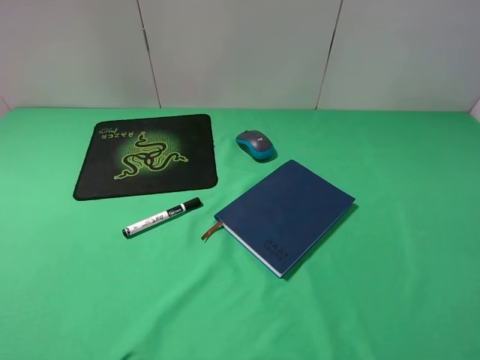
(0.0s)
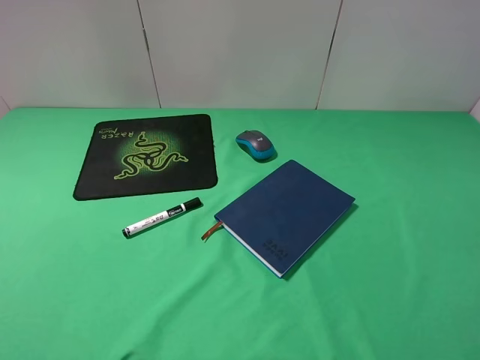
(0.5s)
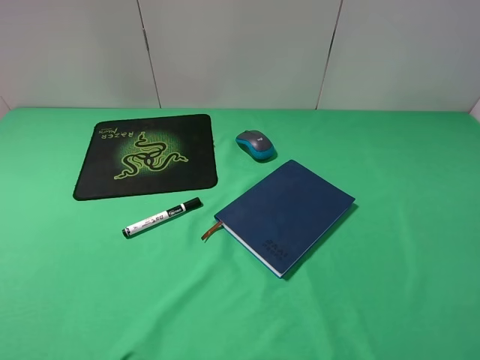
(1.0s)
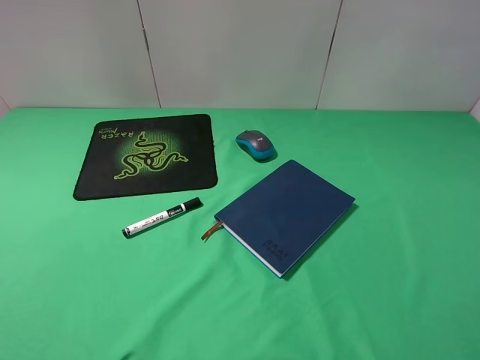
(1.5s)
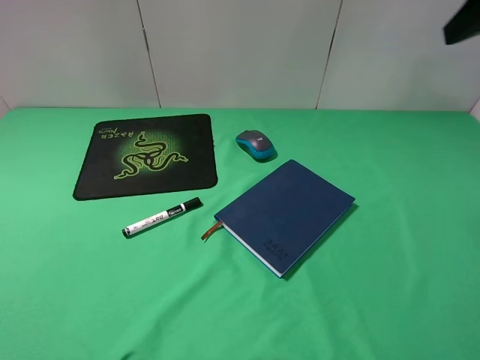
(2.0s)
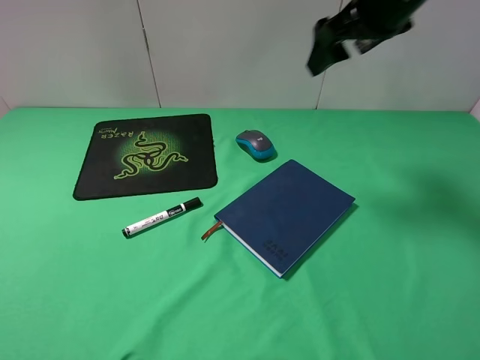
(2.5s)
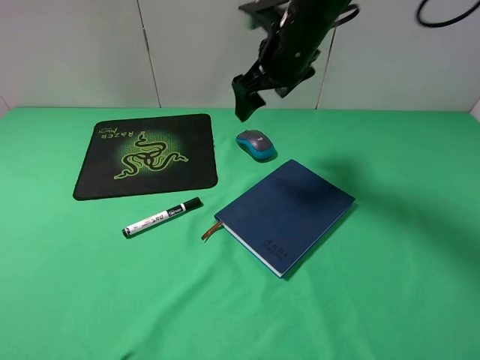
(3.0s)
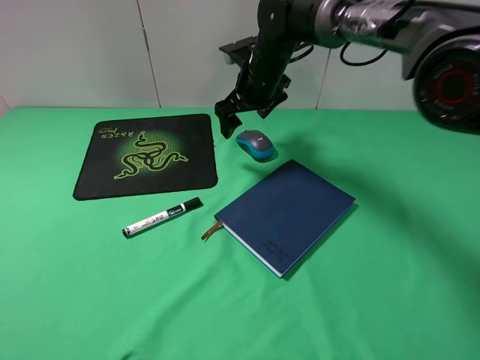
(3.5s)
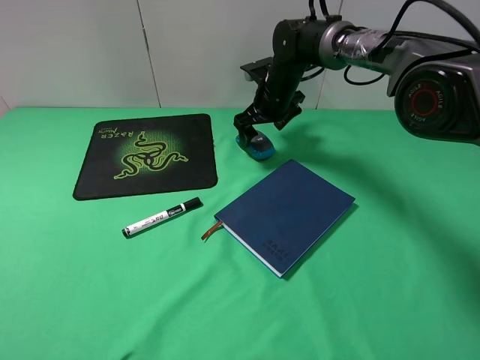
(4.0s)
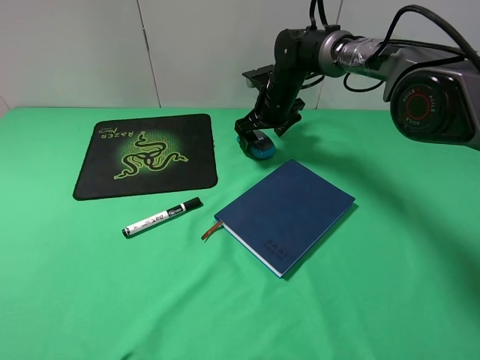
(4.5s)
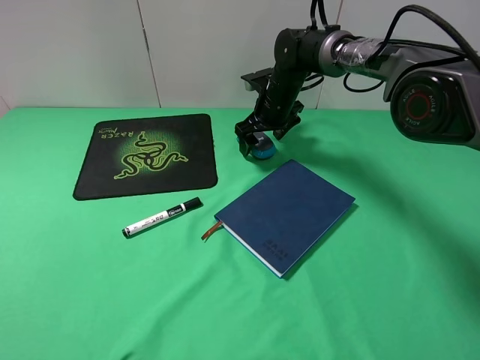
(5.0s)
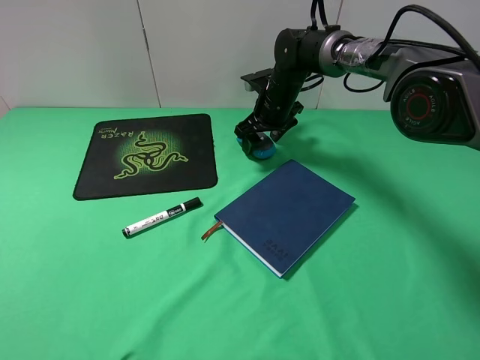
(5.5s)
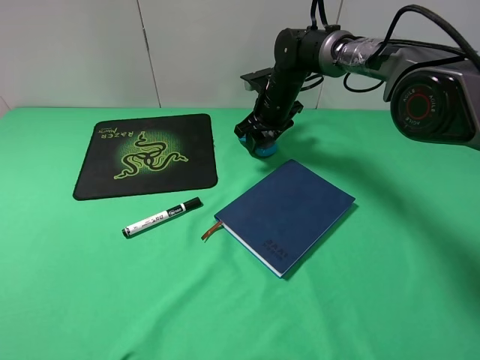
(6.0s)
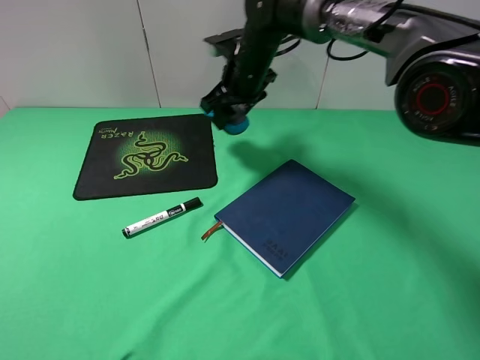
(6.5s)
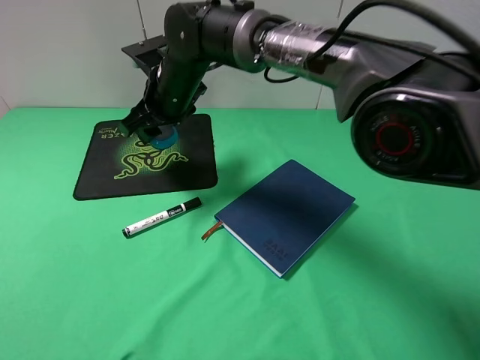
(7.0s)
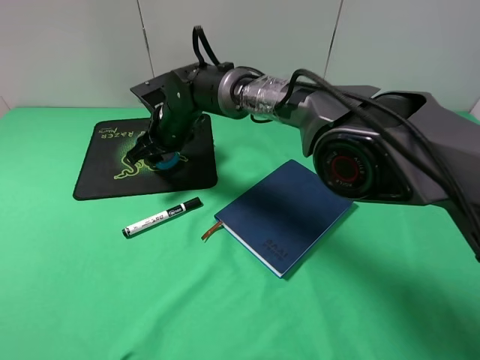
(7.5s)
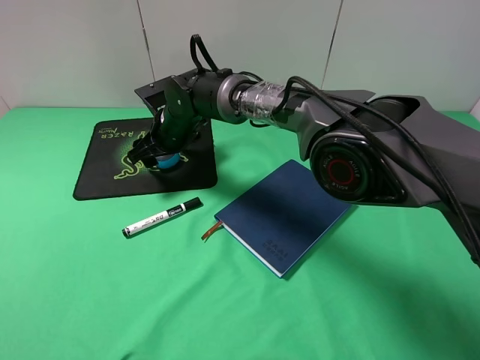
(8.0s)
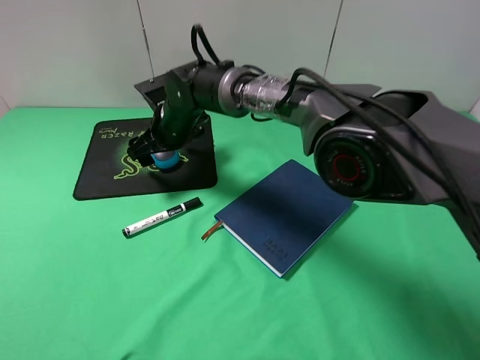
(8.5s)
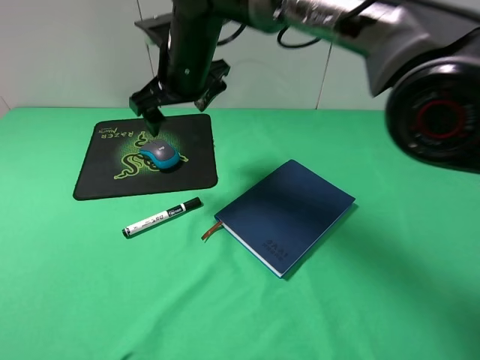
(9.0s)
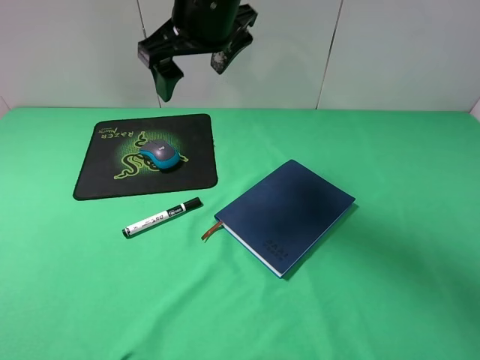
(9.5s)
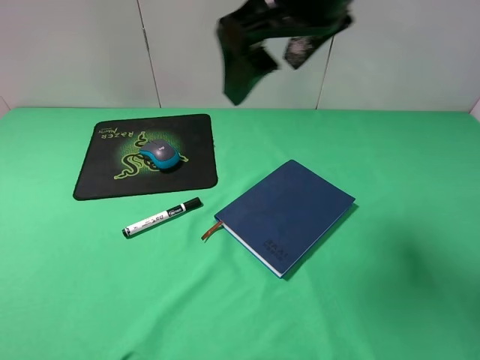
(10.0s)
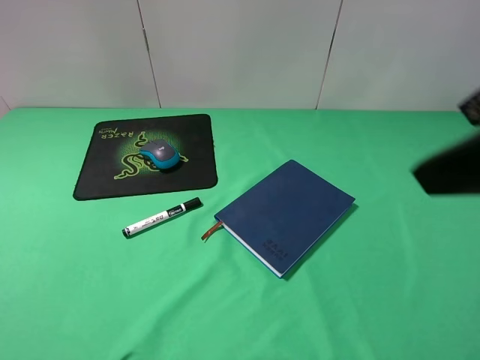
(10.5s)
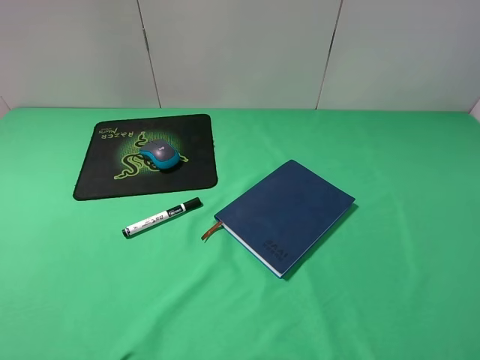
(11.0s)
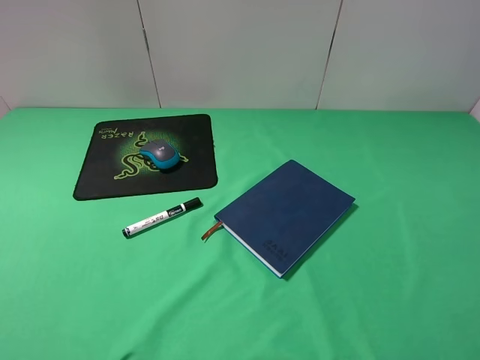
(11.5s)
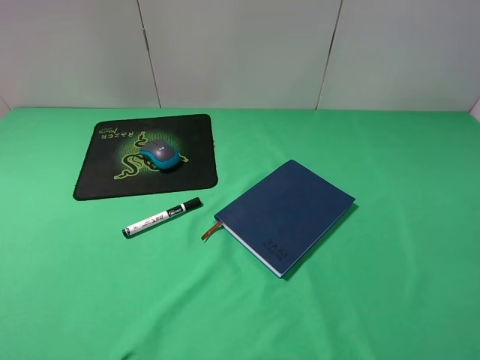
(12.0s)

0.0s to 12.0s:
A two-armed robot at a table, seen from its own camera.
Step, 0.0s to 5.5s: Grasp the mouse with the right gripper.
Step, 6.0s to 8.5s: Place the mouse on the mouse pad with the right gripper.
0.0s to 2.0s: The right gripper shifts roughly 30 cm forward and upward.
2.0s to 4.0s: The right gripper goes about 40 cm downward, forward and to the left.
4.0s to 6.0s: The right gripper closes its fingers.
6.0s to 8.0s: The right gripper travels to the left and backward by some 20 cm, and opens up.
8.0s to 10.0s: The right gripper is displaced upward, to the right and backward by about 35 cm.
10.0s to 12.0s: The right gripper moves backward, to the right and downward, some 35 cm.

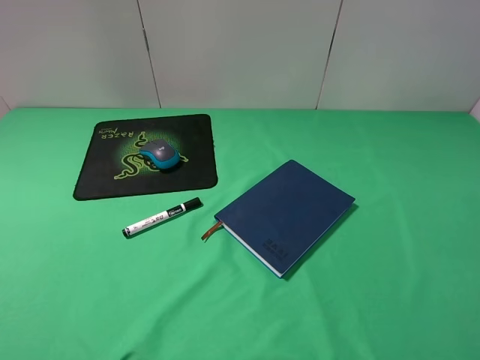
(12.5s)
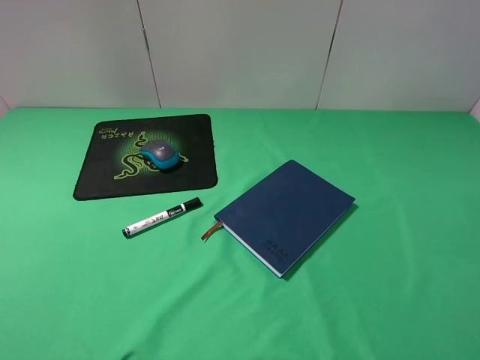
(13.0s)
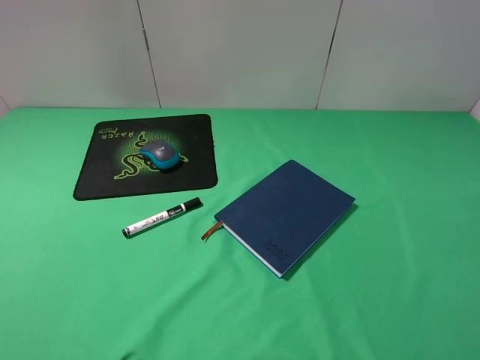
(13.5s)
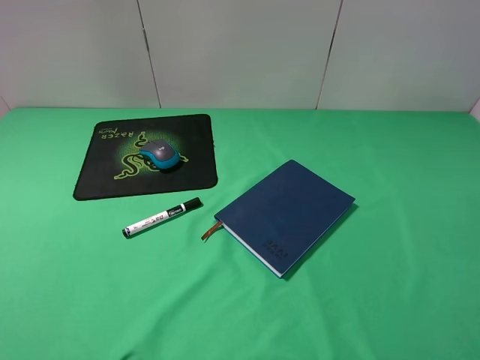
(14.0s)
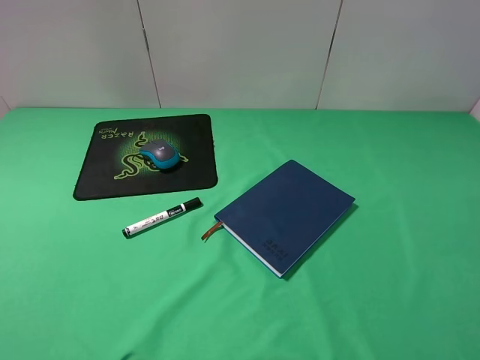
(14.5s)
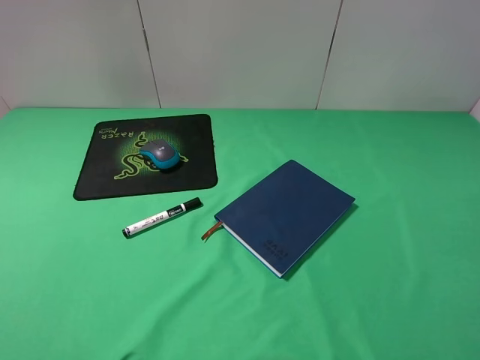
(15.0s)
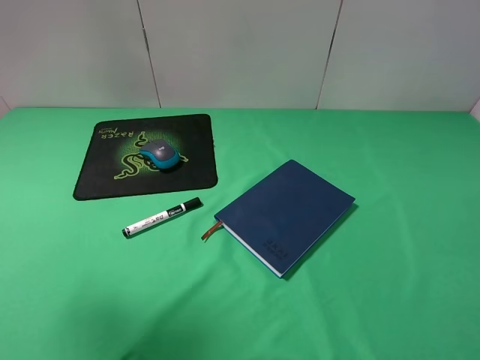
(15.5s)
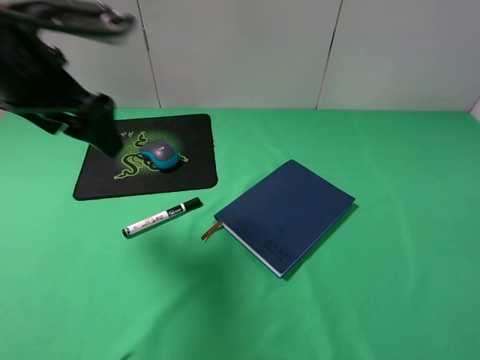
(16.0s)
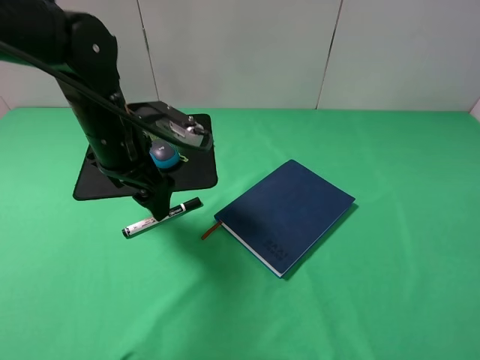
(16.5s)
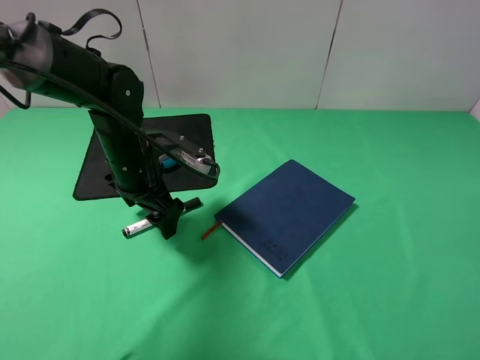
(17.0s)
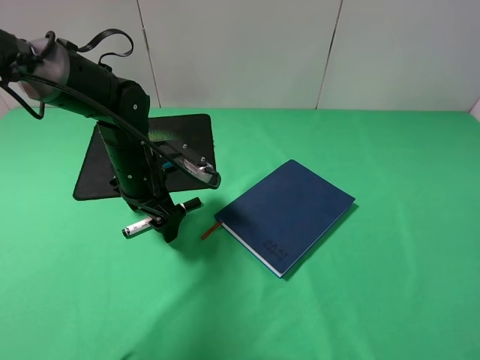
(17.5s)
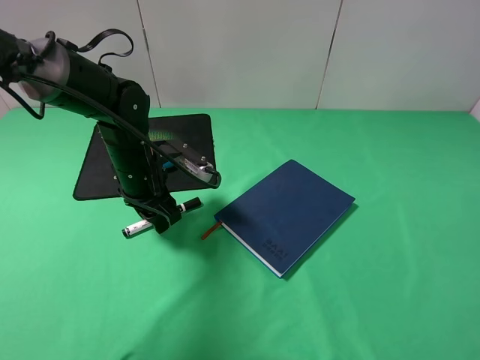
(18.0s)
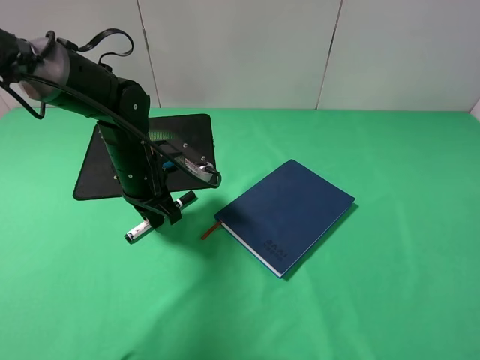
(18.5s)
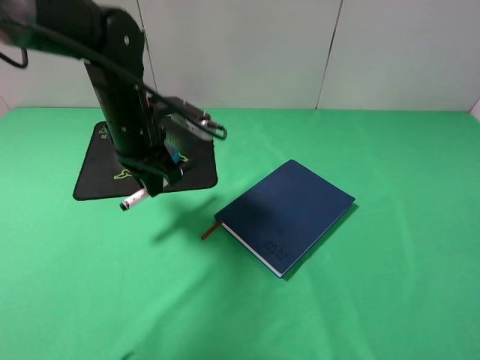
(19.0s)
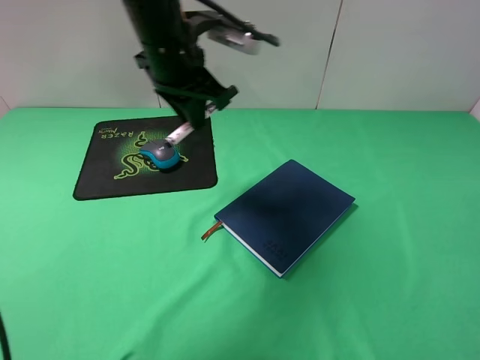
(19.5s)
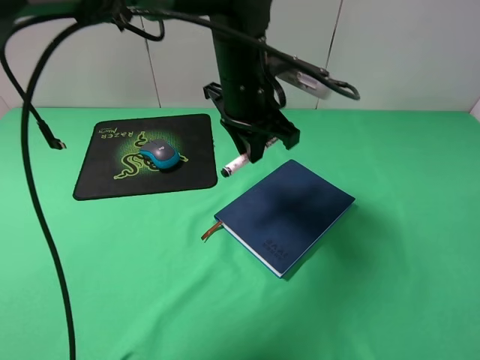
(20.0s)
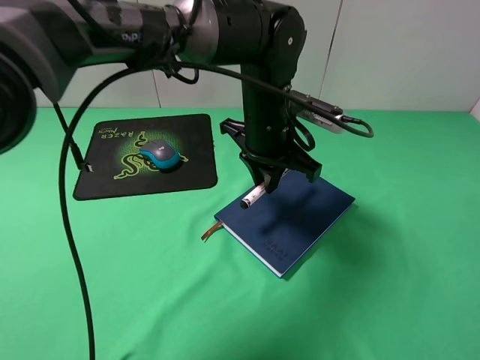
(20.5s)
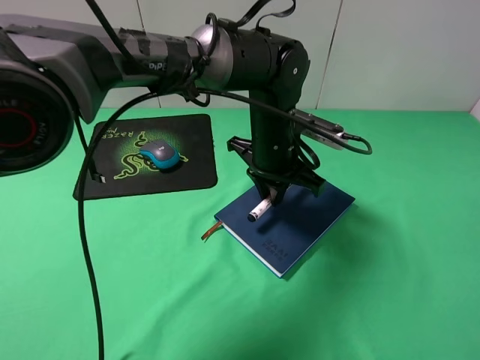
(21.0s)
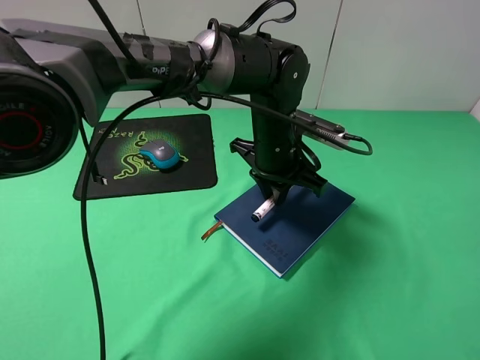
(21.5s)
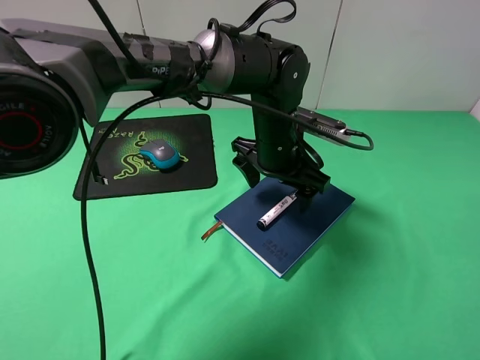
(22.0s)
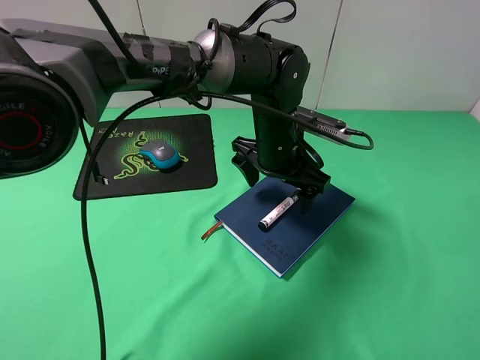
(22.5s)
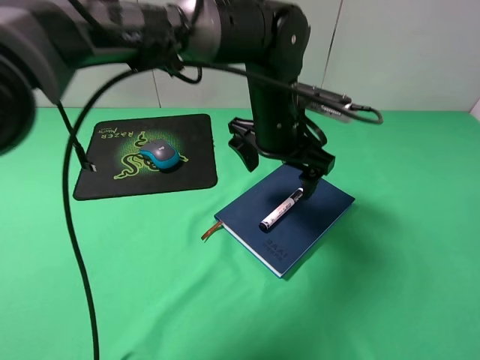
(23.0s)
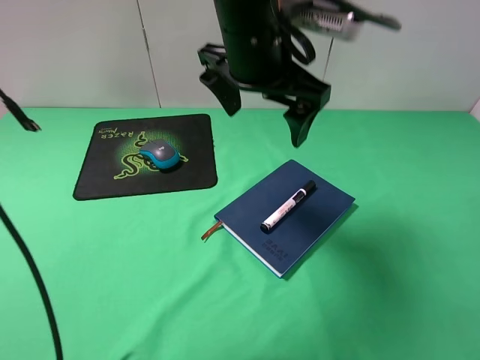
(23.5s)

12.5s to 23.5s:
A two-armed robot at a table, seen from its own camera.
Step, 12.5s to 18.0s: Grasp the marker with the left gripper.
Step, 18.5s to 22.0s: Place the marker on the notebook with the left gripper.
12.5s to 14.5s: Both grippers stay put.
14.5s to 16.0s: The left gripper moves forward and to the right, some 30 cm.
16.0s to 18.0s: The left gripper travels downward by about 20 cm, and closes.
18.0s to 20.0s: The left gripper travels to the right and upward by approximately 20 cm.
20.0s to 21.5s: The left gripper goes approximately 10 cm downward.
21.5s to 23.5s: The left gripper moves upward, roughly 15 cm, and opens.

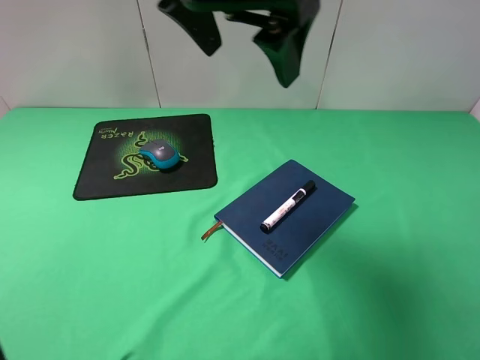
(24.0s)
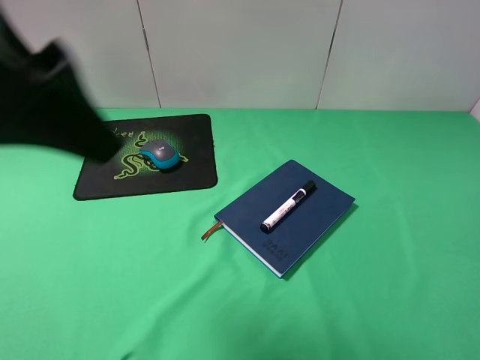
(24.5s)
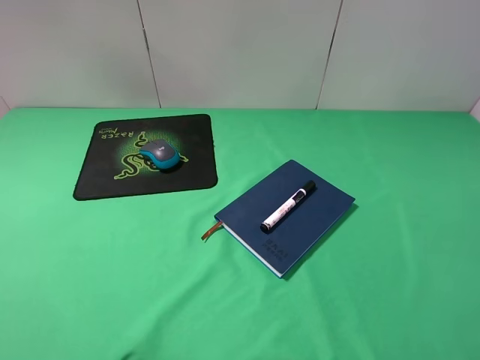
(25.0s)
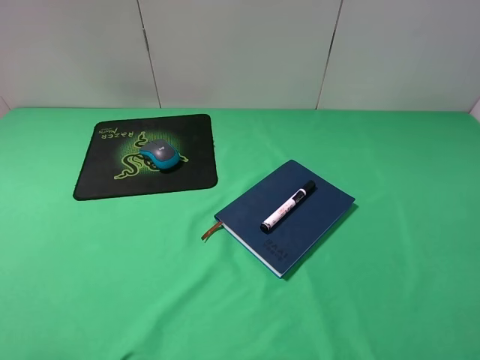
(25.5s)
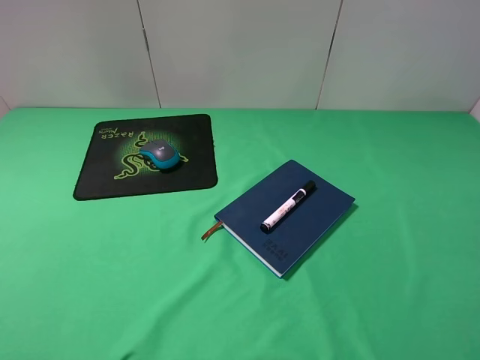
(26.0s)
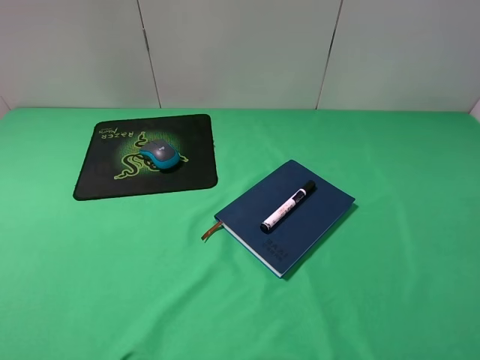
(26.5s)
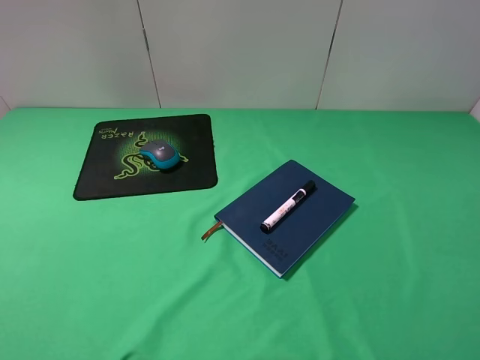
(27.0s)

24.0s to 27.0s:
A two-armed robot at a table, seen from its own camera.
24.0s to 25.5s: The left gripper shifts approximately 35 cm to the left and backward.
